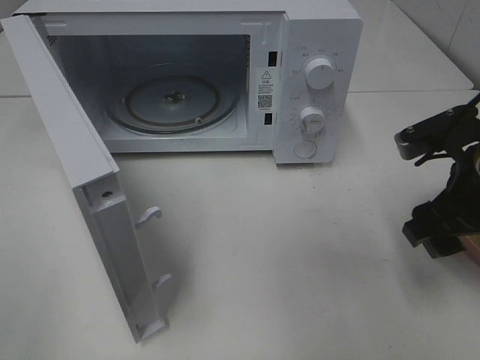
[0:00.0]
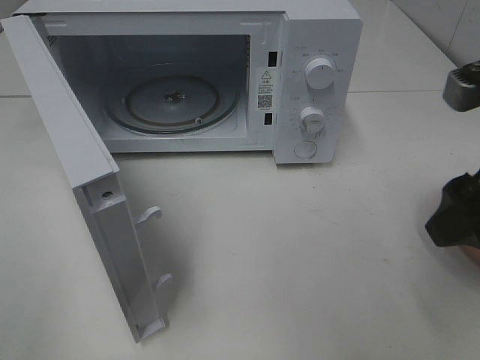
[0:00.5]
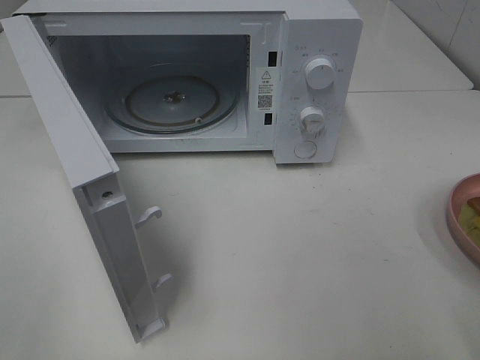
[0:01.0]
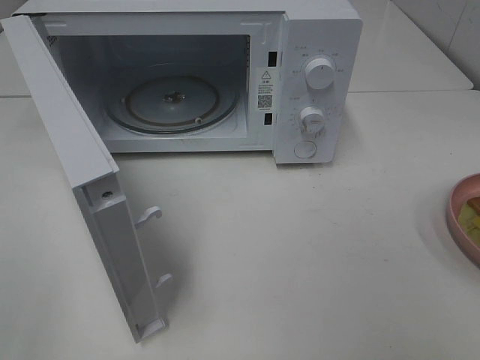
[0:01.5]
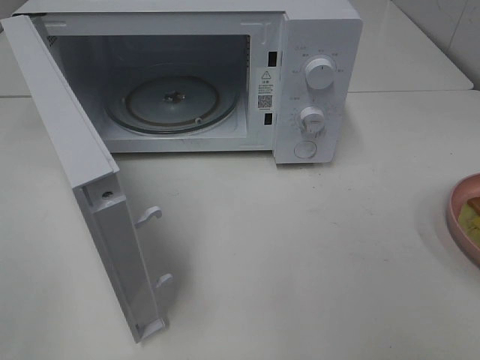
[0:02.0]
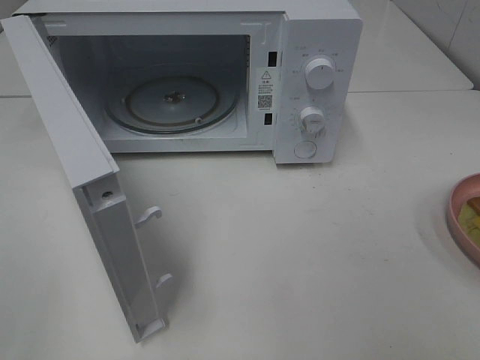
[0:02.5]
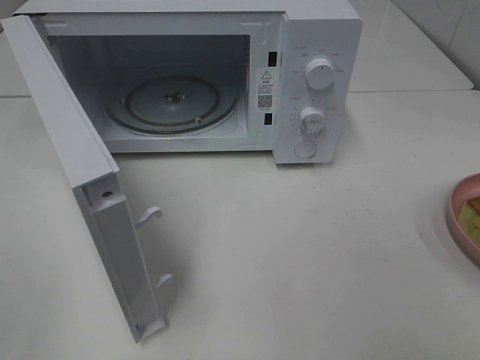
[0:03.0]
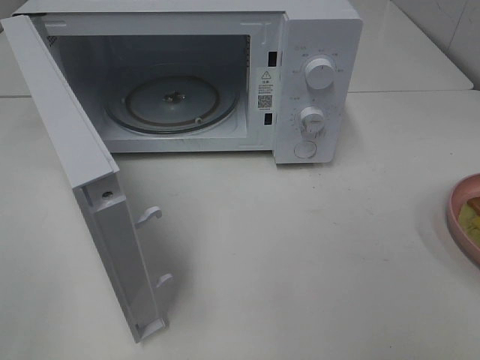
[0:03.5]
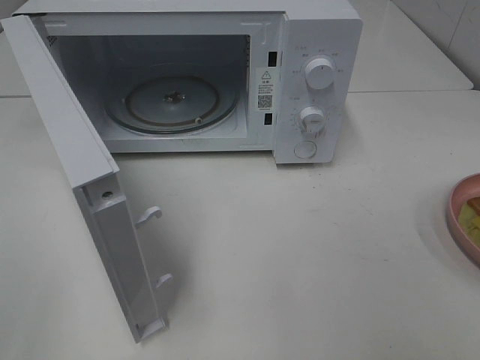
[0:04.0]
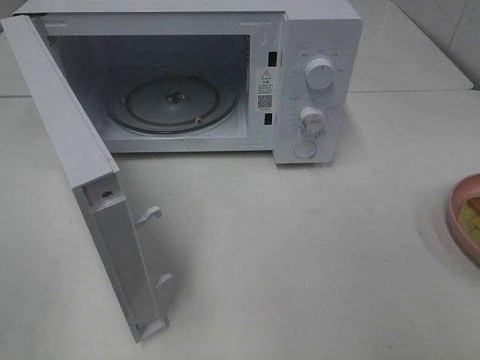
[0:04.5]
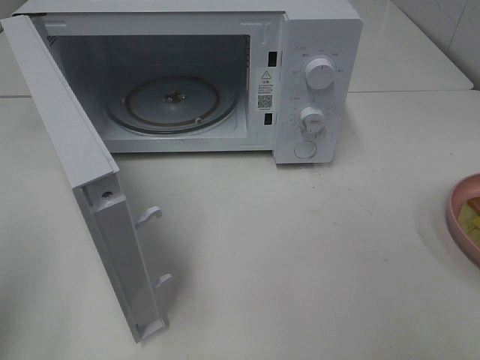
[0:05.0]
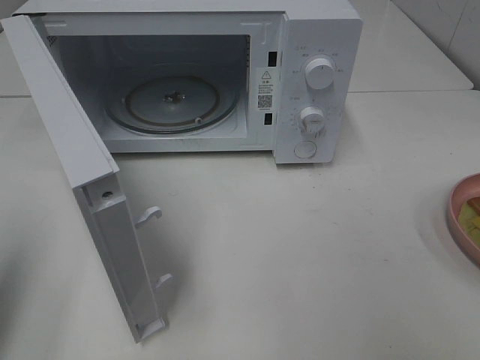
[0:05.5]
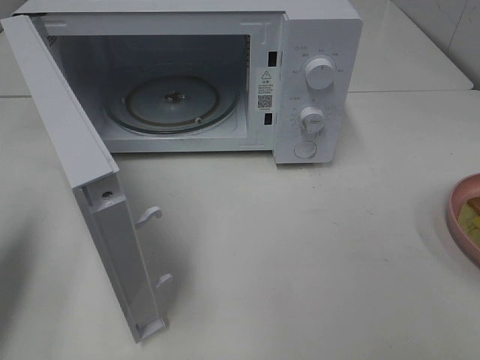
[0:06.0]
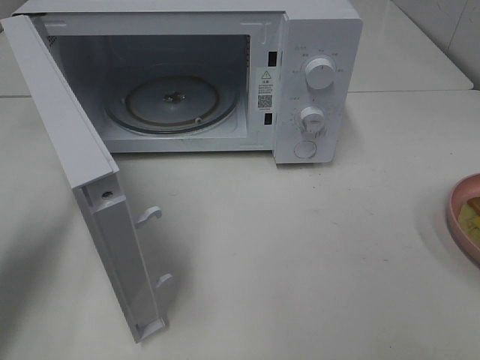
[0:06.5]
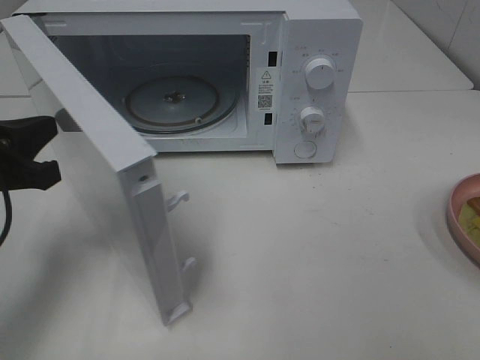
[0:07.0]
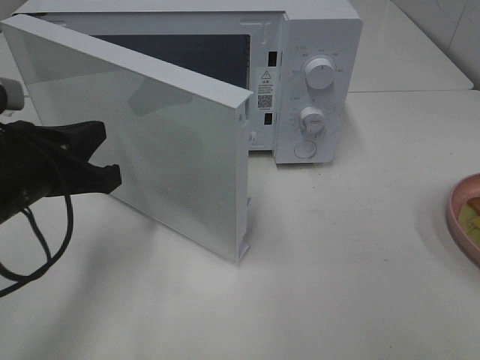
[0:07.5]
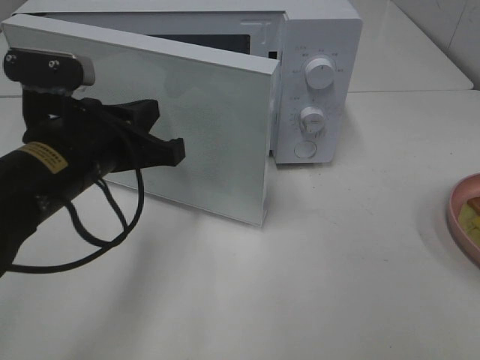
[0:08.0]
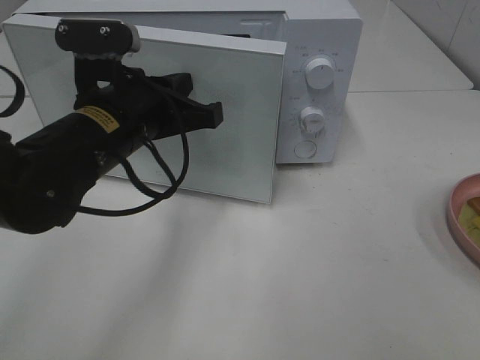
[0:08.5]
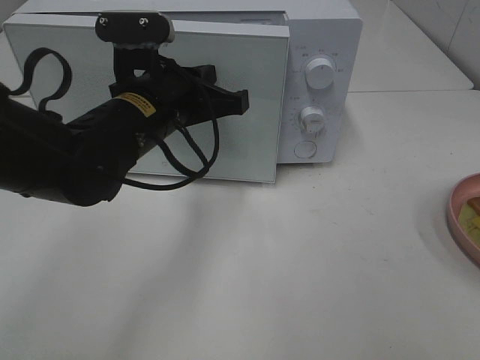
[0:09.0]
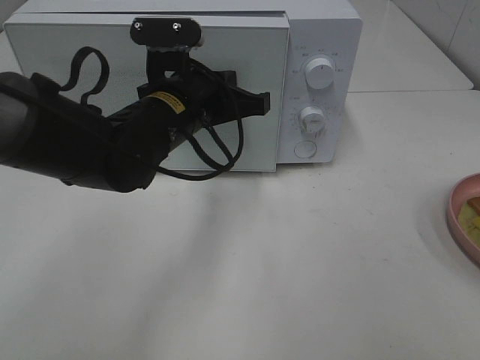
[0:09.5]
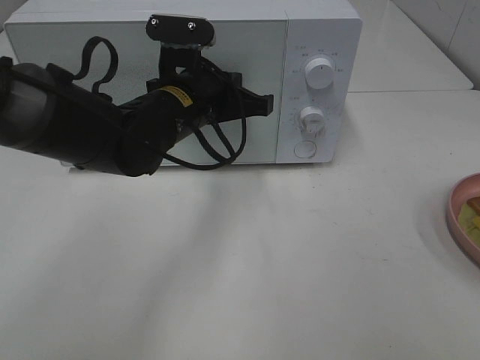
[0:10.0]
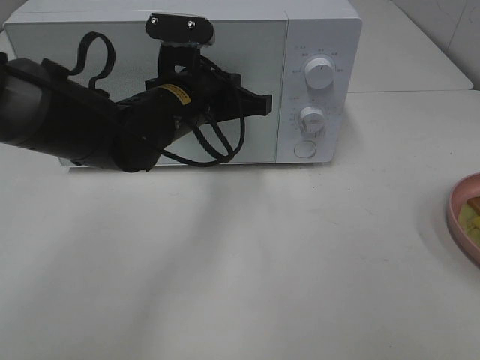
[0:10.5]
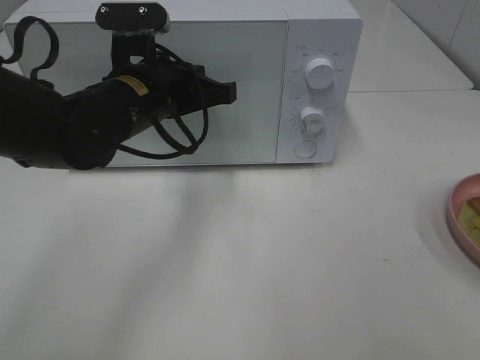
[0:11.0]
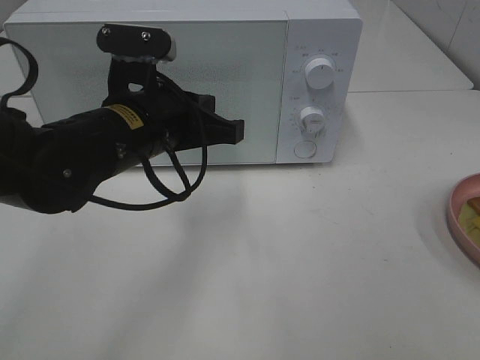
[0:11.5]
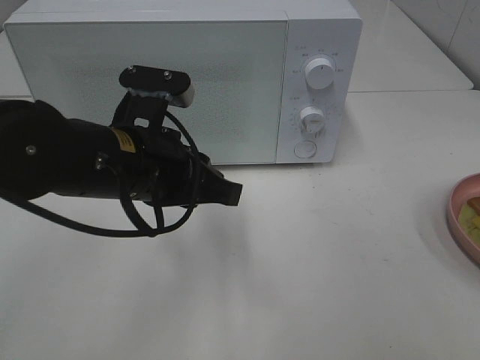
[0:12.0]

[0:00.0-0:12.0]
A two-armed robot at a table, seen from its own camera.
Task of the whole recording: Heat Sandwich.
Step, 0:00.5 to 0:11.0: Left hand: close the microwave door.
0:00.0 to 0:02.0: The right gripper shifts some 25 cm backward and upward.
0:02.0 to 0:04.0: The two grippers keep their place.
0:04.0 to 0:06.0: The left gripper travels forward by some 20 cm, and closes its fingers.
0:06.0 to 0:08.0: The left gripper goes approximately 20 cm to the right.
0:08.0 to 0:10.0: The left gripper is displaced forward and to the right by roughly 15 cm.
0:10.0 to 0:12.0: The left gripper is displaced backward by roughly 10 cm.

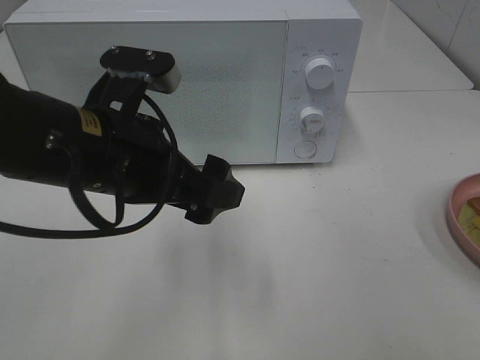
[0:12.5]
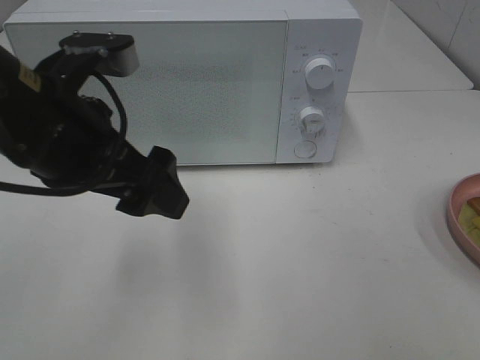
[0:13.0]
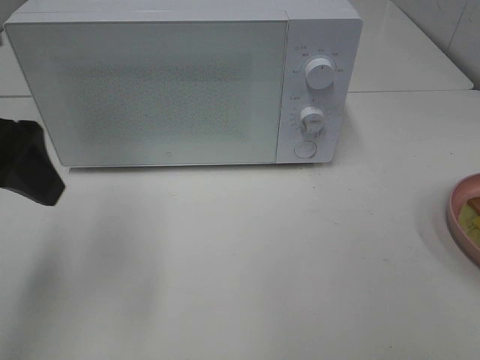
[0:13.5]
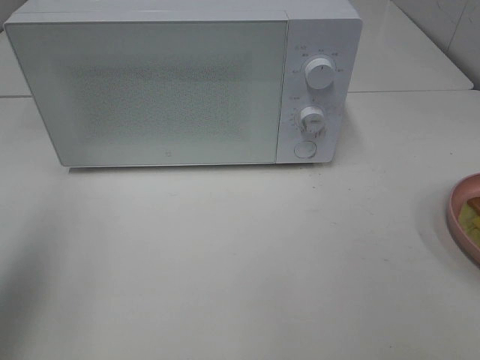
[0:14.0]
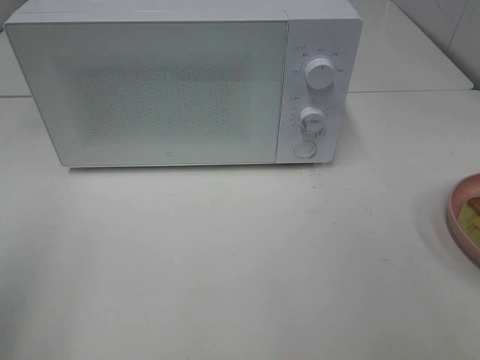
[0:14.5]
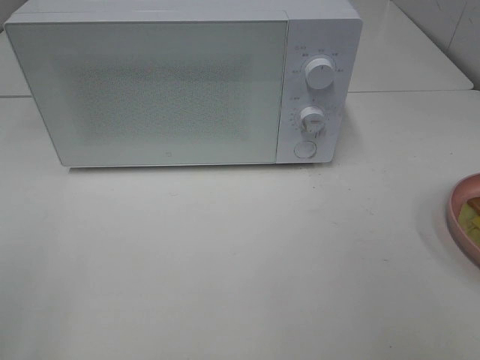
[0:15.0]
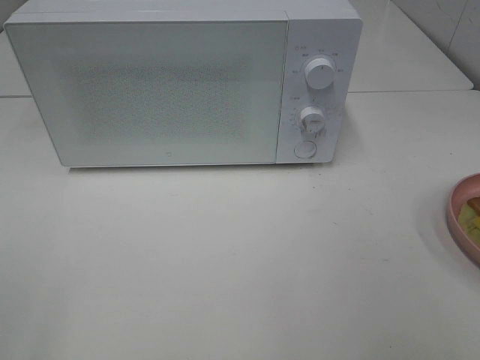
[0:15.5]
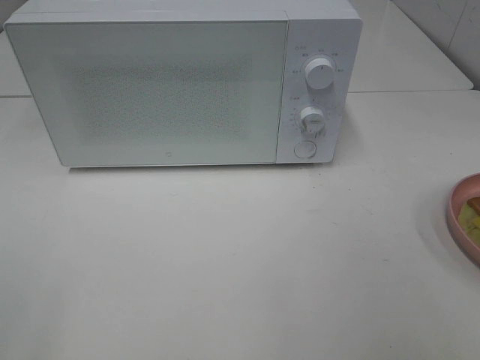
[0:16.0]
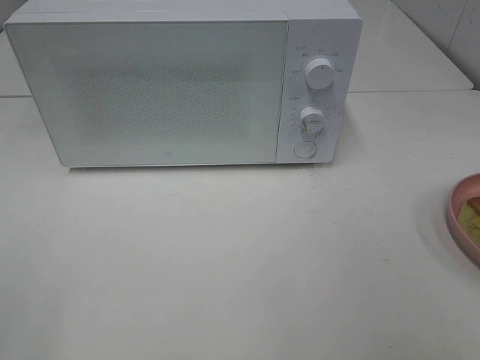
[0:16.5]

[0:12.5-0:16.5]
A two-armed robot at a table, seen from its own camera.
Task of the whole recording: Heat Sandwich.
0:12.5 to 0:14.5: The left gripper moves to the left and backward, about 25 cm.

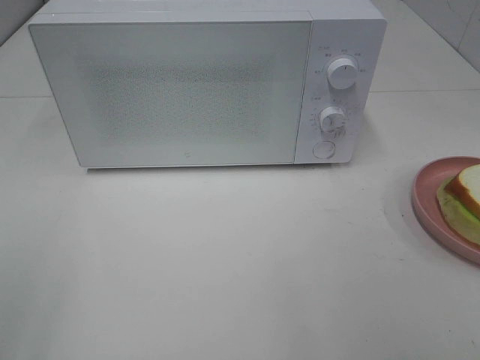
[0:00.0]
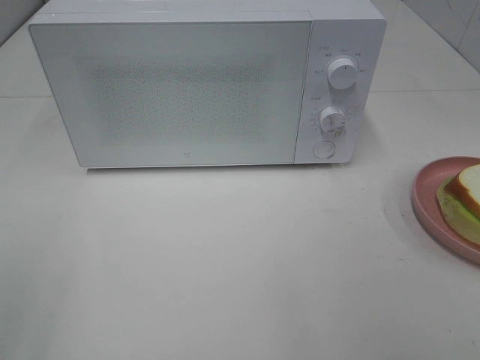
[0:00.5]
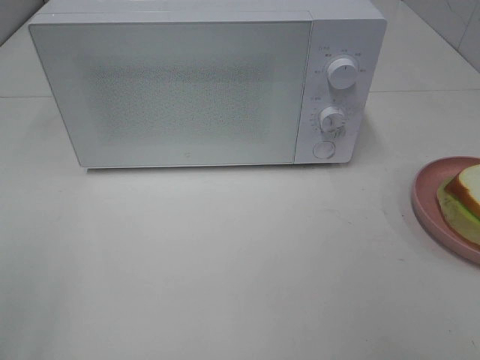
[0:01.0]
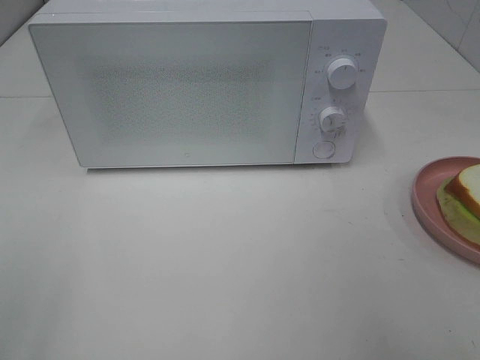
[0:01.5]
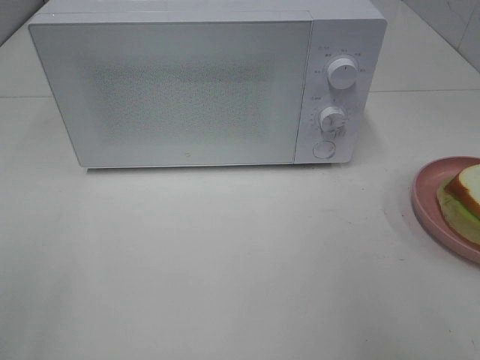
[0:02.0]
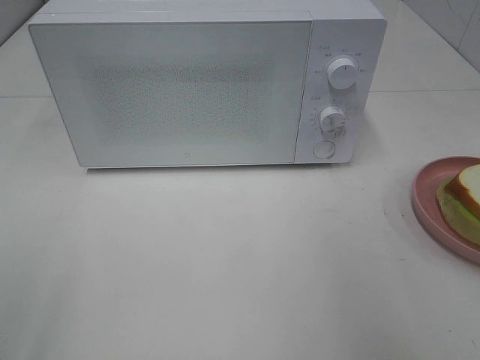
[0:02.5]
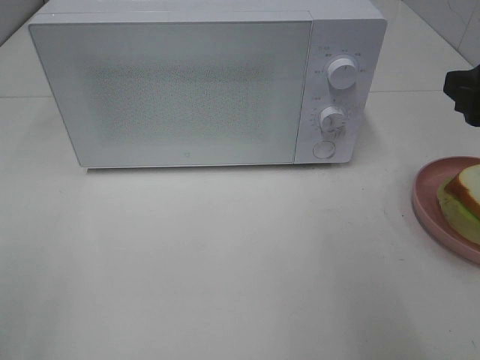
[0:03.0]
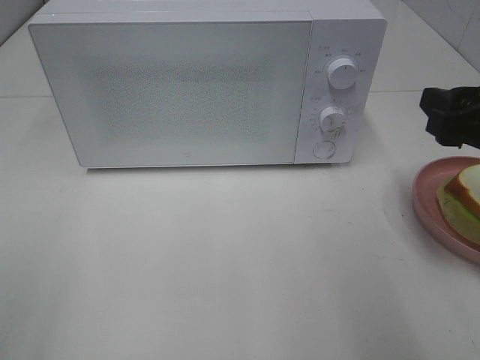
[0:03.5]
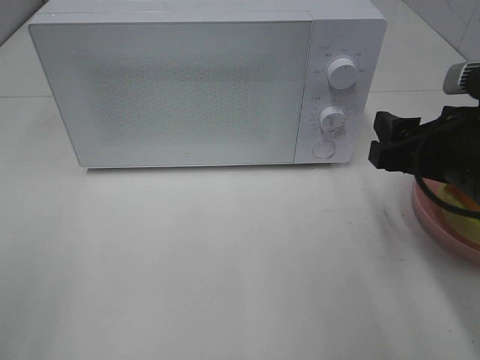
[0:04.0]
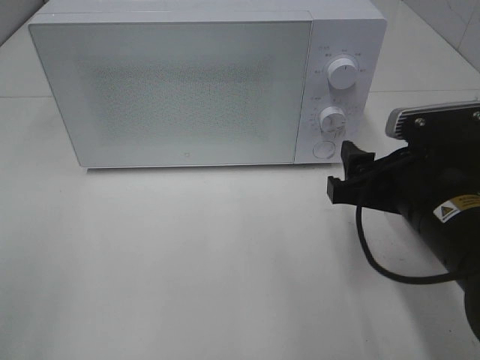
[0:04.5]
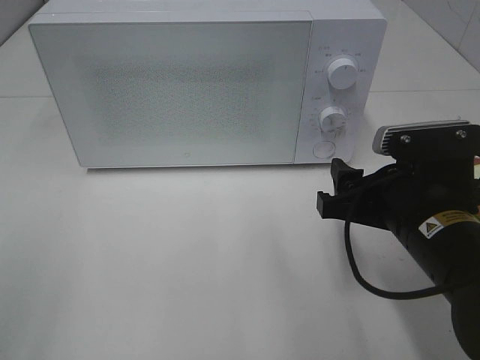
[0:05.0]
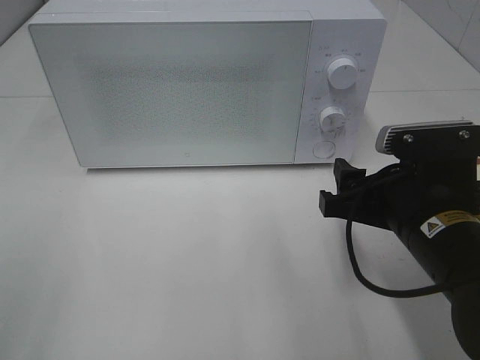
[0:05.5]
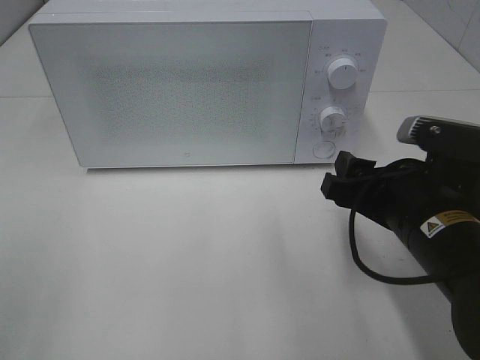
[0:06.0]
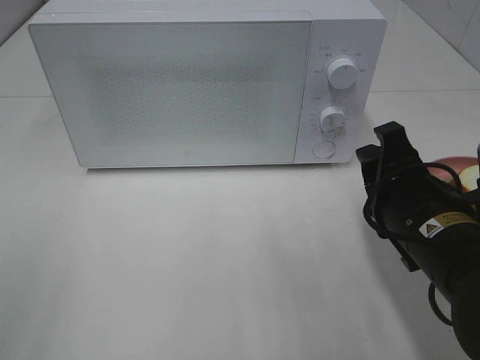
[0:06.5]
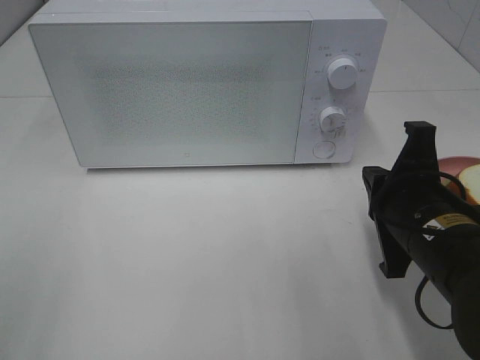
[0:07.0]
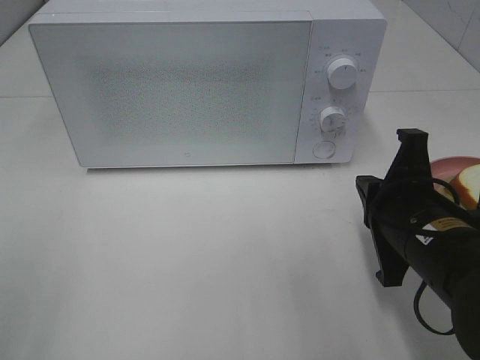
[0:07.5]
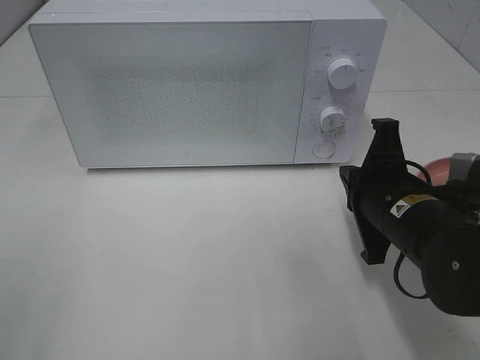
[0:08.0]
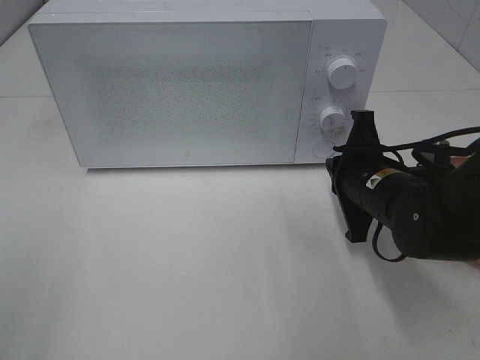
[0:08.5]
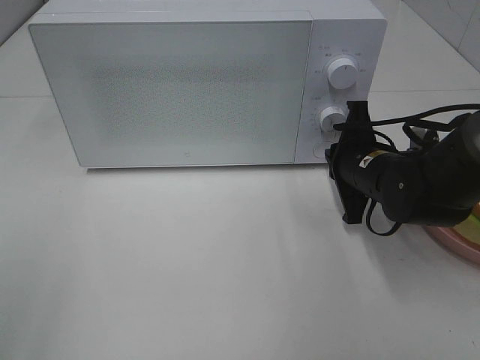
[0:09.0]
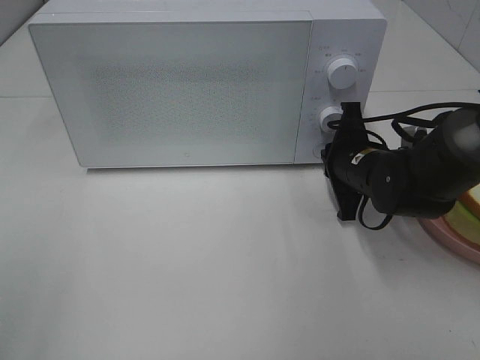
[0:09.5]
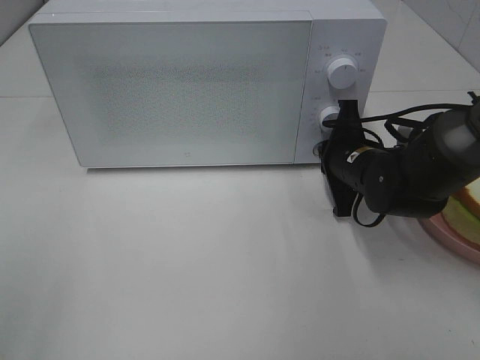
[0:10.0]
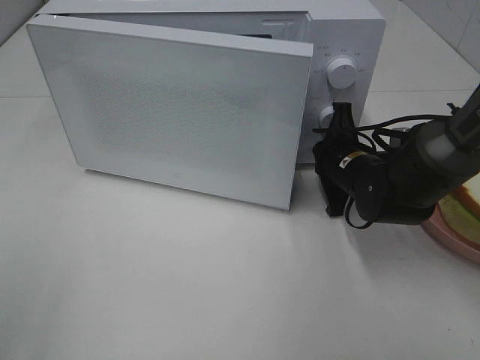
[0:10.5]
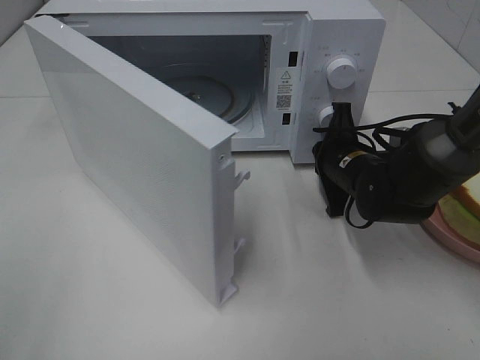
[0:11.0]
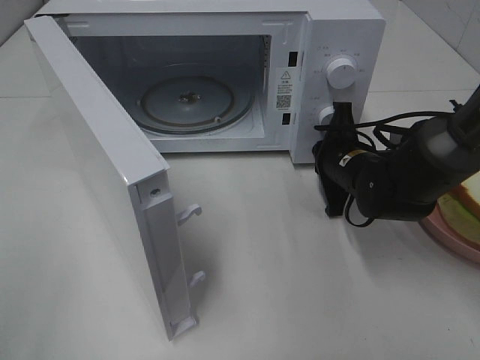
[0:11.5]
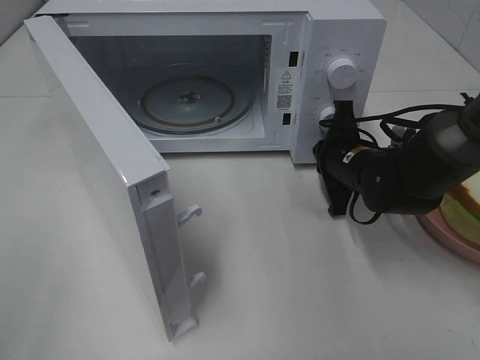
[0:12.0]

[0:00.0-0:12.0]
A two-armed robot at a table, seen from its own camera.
Task of the whole recording: Heat Sandwich.
0:02.0 to 0:04.0: The right gripper is displaced downward, forward and to the left by about 15 cm.
0:04.0 to 0:06.0: The right gripper moves some 5 cm.
0:06.0 to 0:08.0: The right gripper closes up.
0:08.0 to 0:10.0: The right gripper moves forward, roughly 10 cm.
